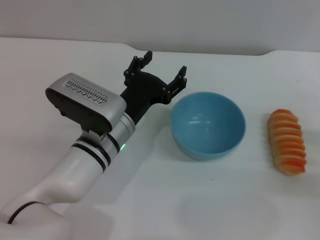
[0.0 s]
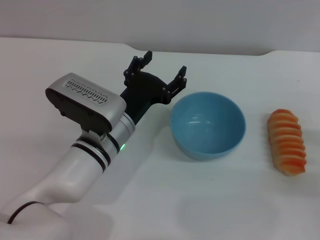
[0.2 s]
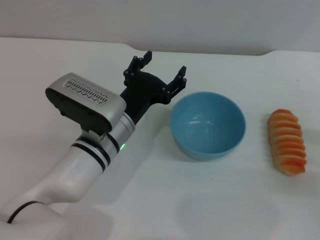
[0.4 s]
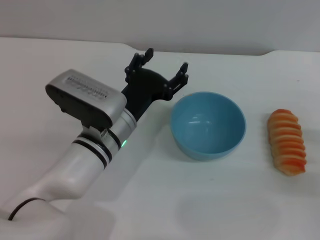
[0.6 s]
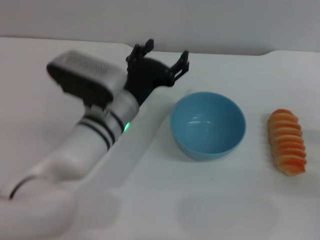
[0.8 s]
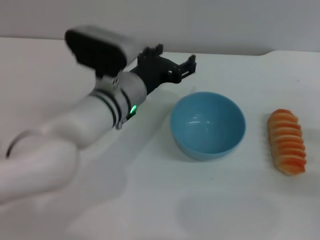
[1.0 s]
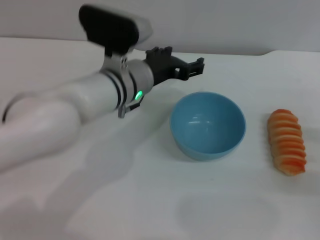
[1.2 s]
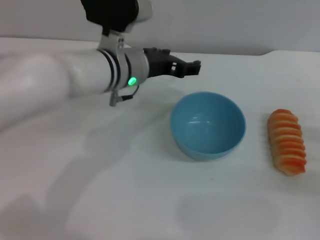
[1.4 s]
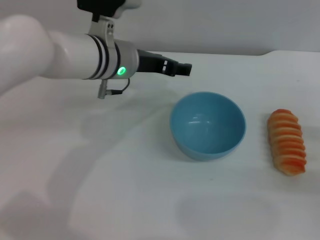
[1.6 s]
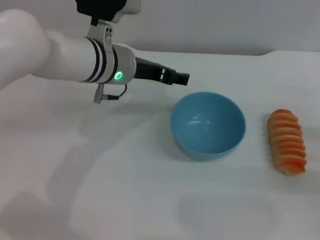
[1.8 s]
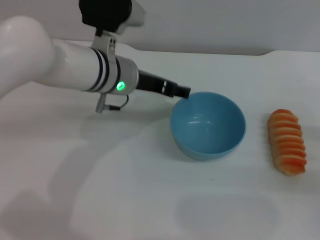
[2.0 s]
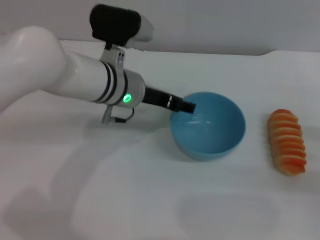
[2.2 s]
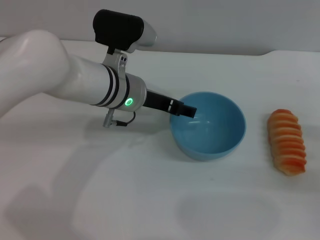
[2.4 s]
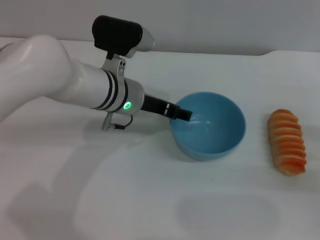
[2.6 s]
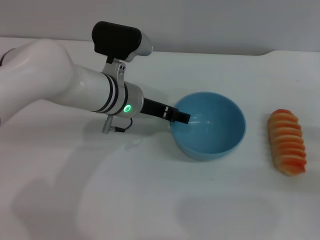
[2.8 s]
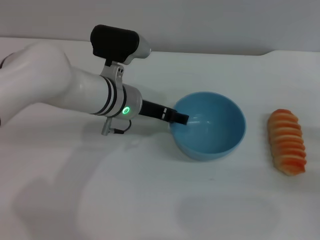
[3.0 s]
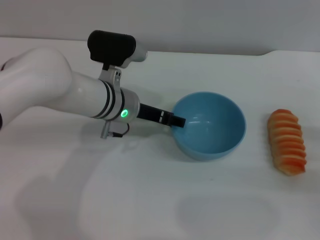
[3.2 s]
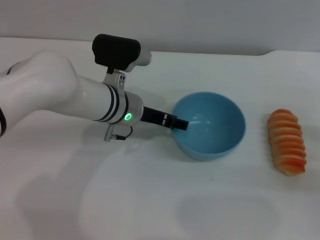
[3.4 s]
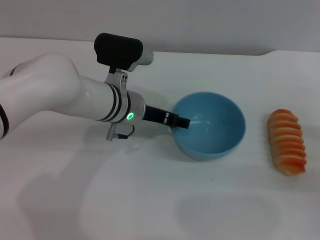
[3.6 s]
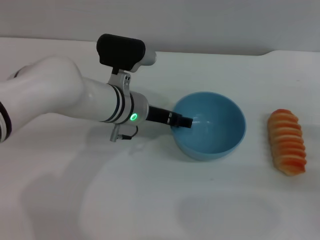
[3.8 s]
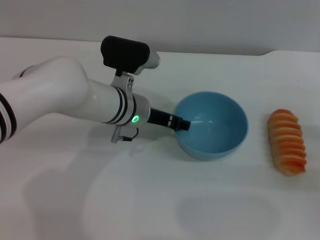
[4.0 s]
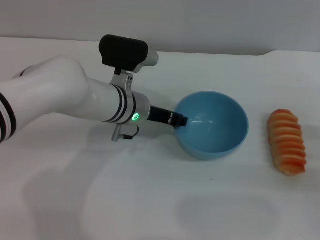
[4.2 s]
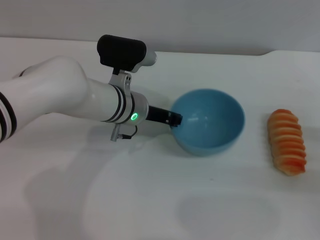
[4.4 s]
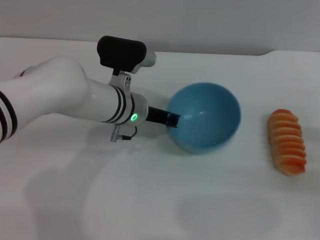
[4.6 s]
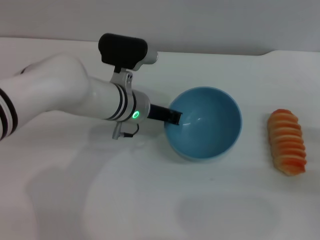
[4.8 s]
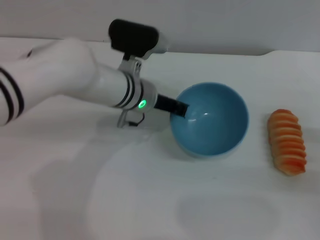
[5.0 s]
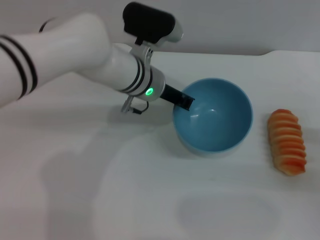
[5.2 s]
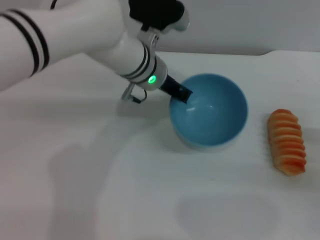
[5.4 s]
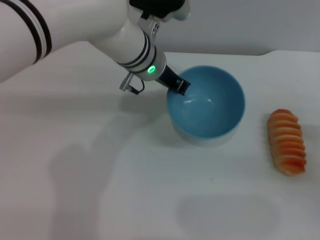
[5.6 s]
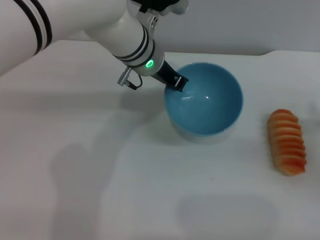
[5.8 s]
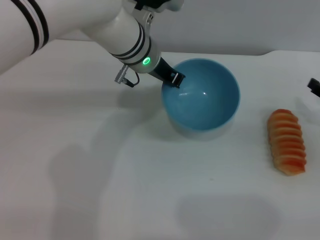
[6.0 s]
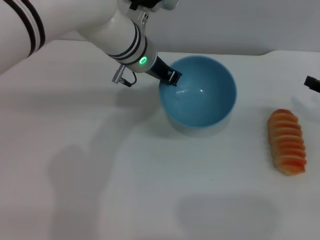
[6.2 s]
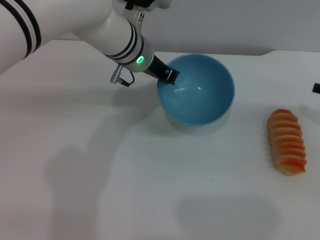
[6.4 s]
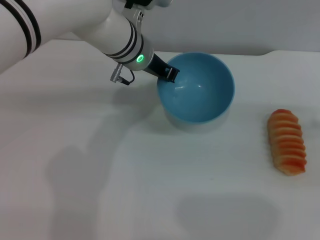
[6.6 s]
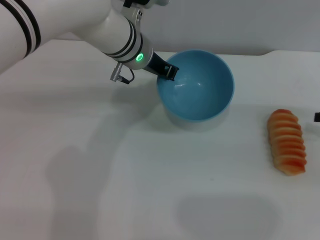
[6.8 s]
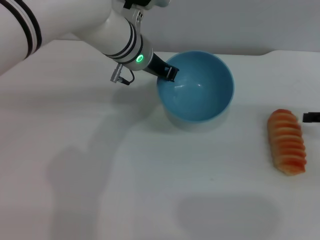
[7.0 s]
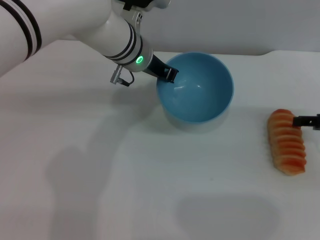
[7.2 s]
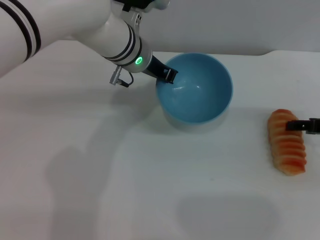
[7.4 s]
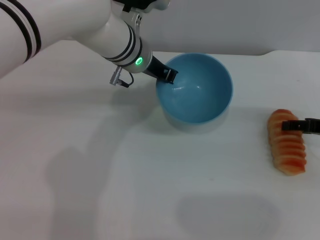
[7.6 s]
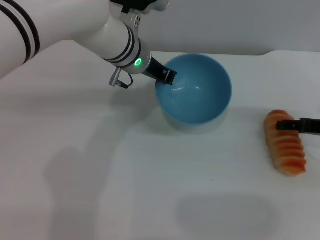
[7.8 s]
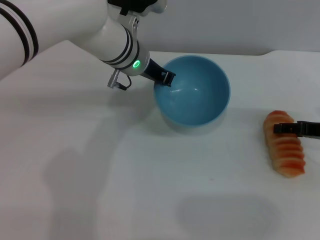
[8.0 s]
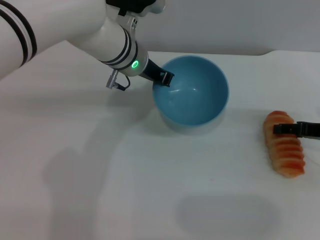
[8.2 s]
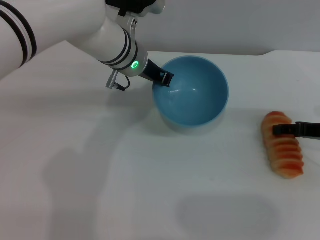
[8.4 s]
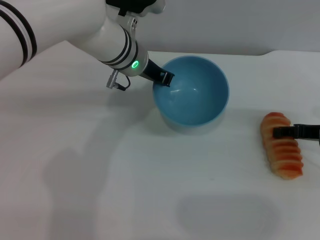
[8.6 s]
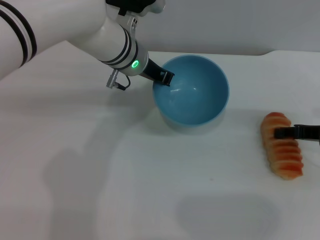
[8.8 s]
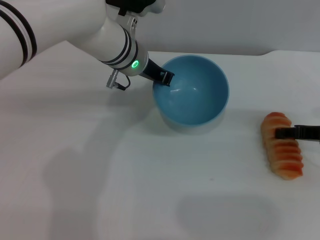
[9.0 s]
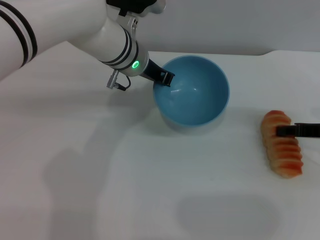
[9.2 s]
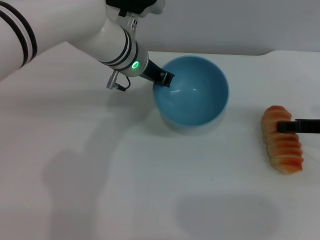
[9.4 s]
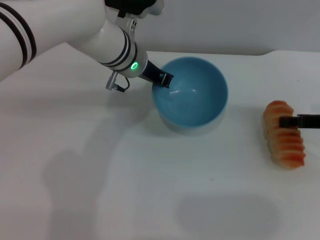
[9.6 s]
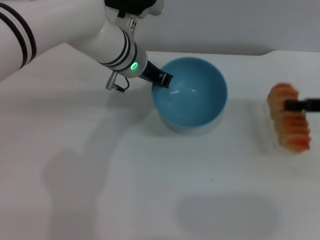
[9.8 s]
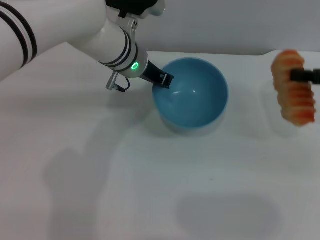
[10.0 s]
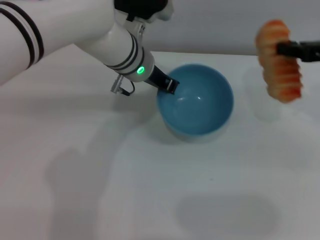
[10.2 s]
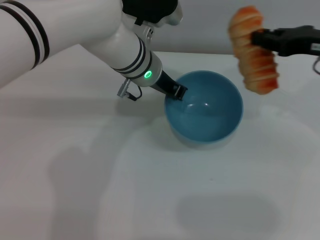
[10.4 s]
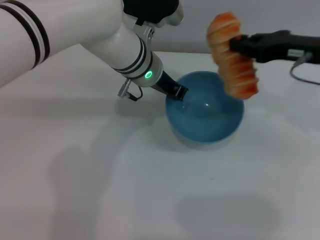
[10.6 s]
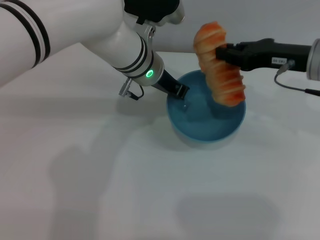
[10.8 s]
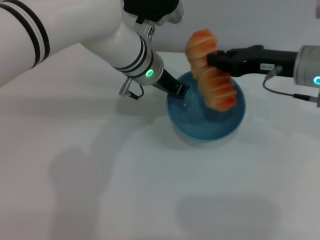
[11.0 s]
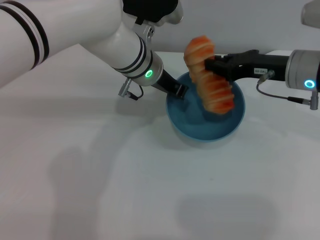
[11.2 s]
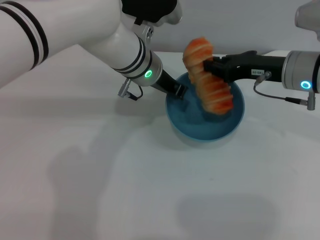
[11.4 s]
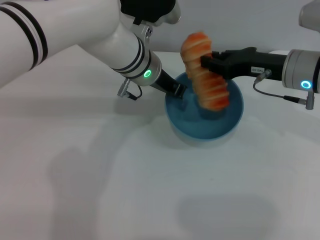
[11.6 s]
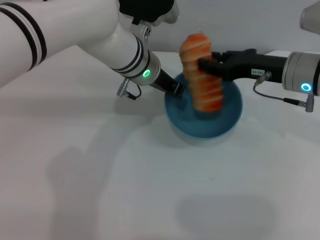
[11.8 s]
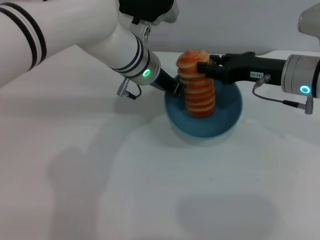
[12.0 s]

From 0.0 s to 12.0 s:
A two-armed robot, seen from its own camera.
Task of the whole recording: put the bread into the blue bowl and pour it out repeatedly.
Step, from 0.0 s to 5.8 s: Pick up the bowl with the left gripper.
Step, from 6.0 s to 9.8 s: Pick up the bread with the right gripper.
From 0.0 s to 1.6 s: The left gripper travels forward and upward by about 15 cm.
From 1.6 s to 3.0 s: The left gripper shifts about 5 cm downward.
From 3.0 s to 4.4 s: The left gripper closes its fingers.
From 4.4 s to 6.0 s: The right gripper moves forward, approximately 5 cm; the left gripper is displaced upward and forward by some 10 cm, and closes.
From 7.6 s to 9.0 s: The grippers stay close to where they were, moving slightly.
From 9.0 s to 10.4 s: The right gripper shifts roughly 10 cm upward, and closes up.
From 10.4 s to 12.0 s: The right gripper moves to the left and downward, approximately 10 cm.

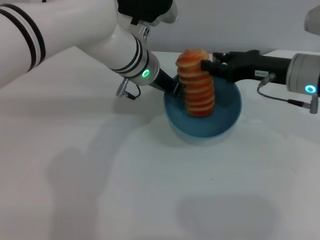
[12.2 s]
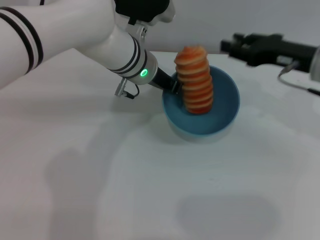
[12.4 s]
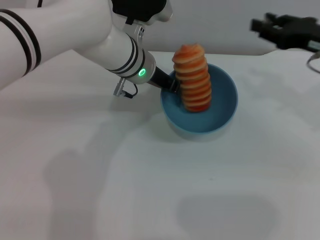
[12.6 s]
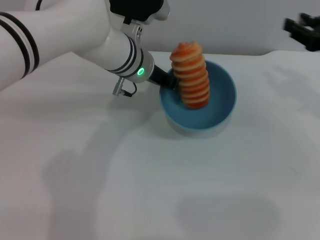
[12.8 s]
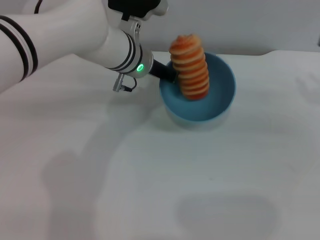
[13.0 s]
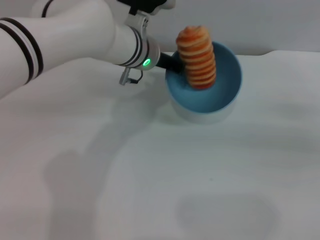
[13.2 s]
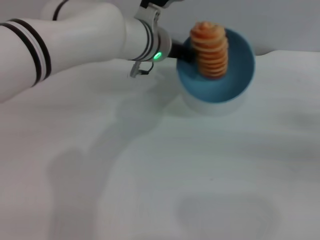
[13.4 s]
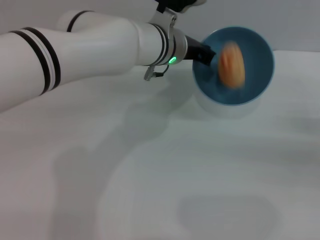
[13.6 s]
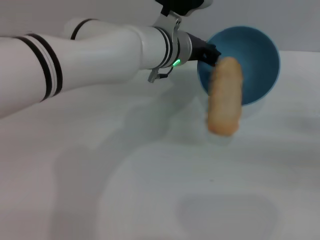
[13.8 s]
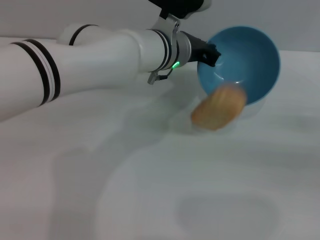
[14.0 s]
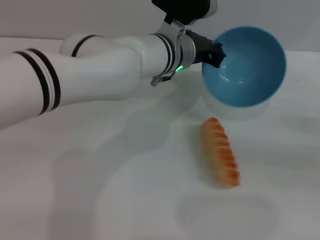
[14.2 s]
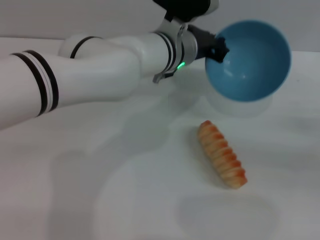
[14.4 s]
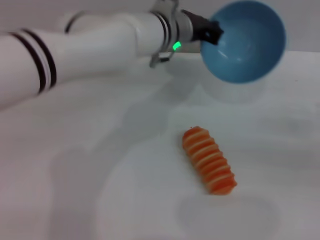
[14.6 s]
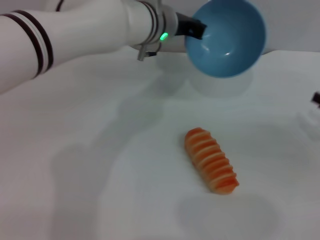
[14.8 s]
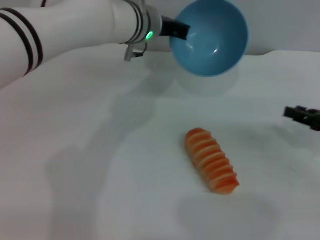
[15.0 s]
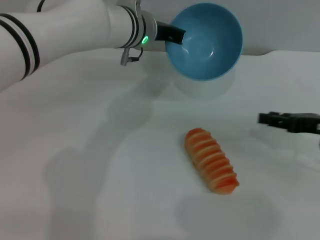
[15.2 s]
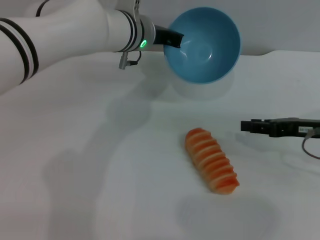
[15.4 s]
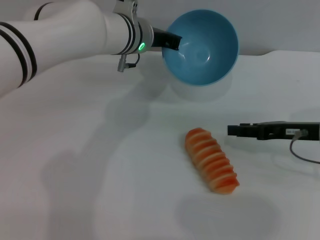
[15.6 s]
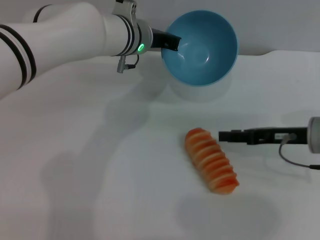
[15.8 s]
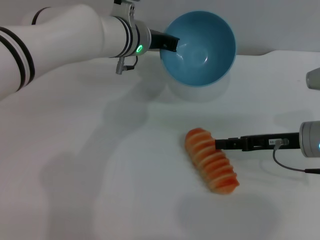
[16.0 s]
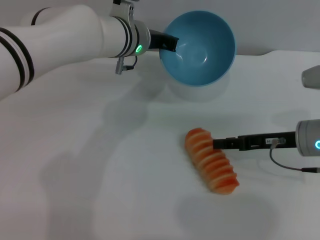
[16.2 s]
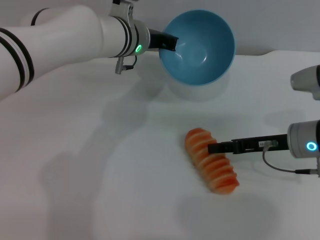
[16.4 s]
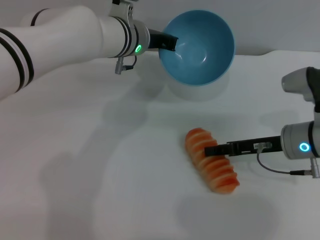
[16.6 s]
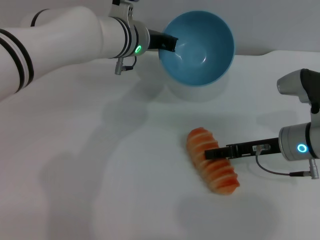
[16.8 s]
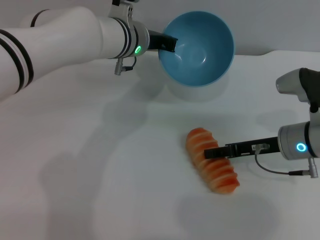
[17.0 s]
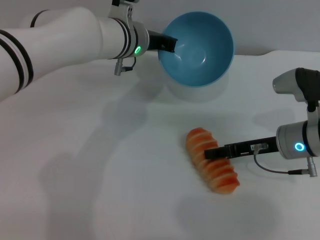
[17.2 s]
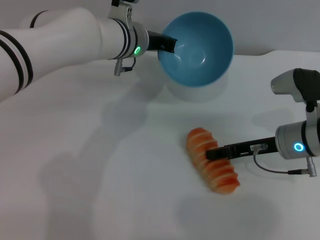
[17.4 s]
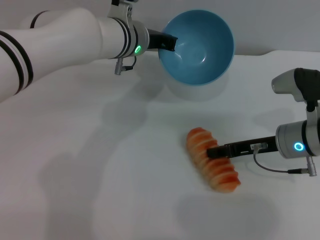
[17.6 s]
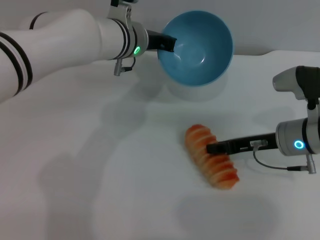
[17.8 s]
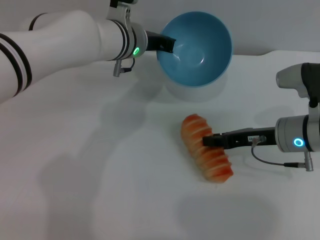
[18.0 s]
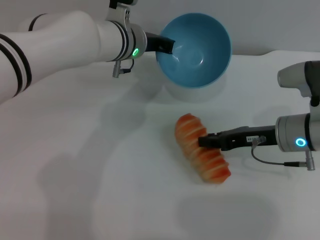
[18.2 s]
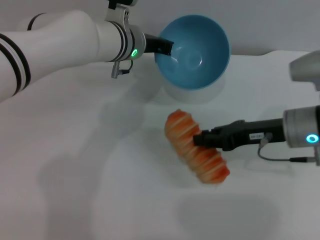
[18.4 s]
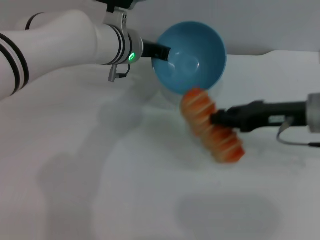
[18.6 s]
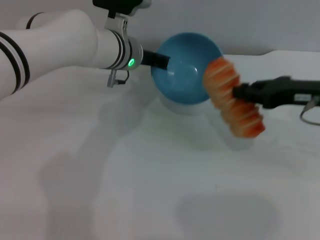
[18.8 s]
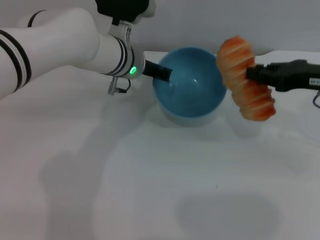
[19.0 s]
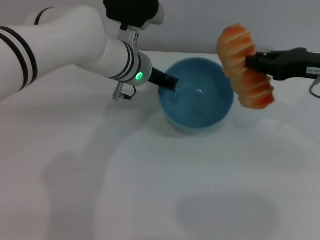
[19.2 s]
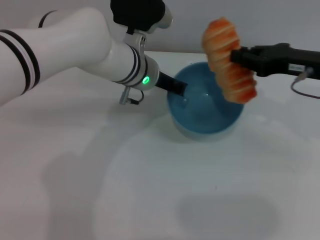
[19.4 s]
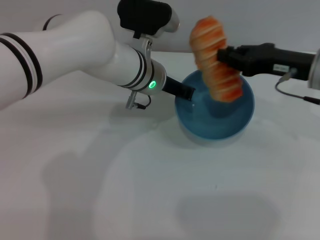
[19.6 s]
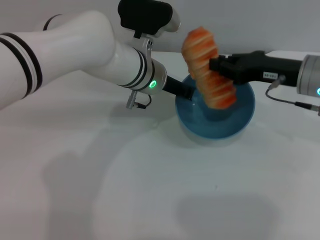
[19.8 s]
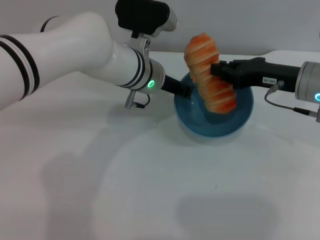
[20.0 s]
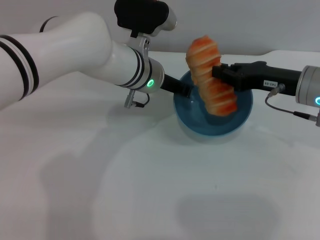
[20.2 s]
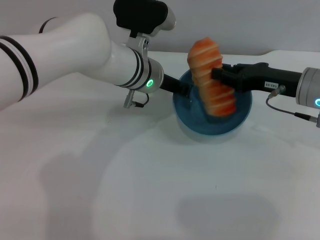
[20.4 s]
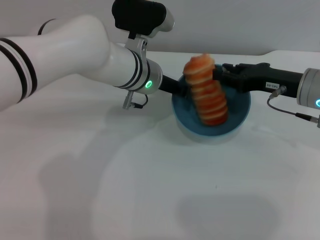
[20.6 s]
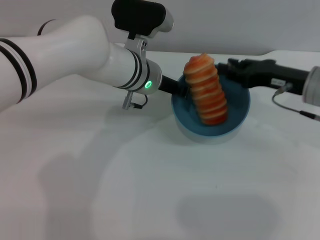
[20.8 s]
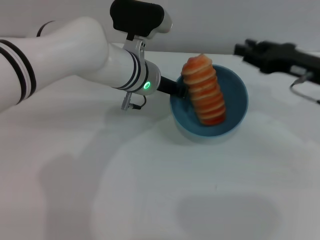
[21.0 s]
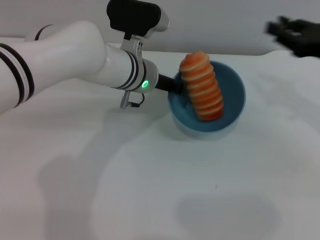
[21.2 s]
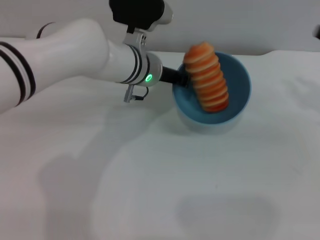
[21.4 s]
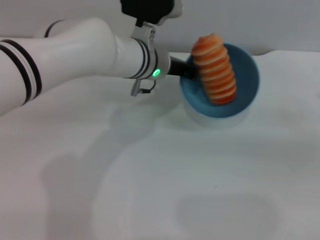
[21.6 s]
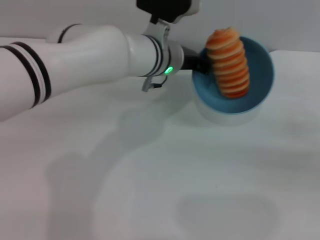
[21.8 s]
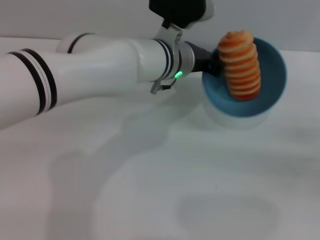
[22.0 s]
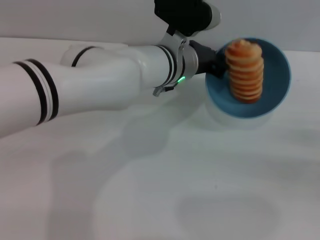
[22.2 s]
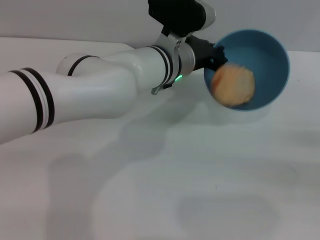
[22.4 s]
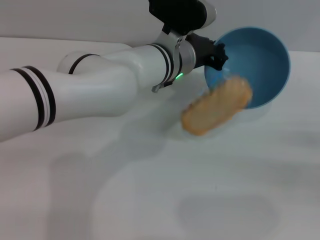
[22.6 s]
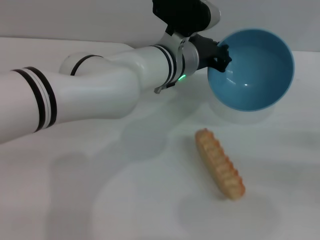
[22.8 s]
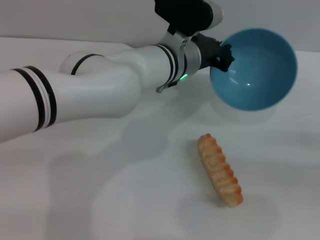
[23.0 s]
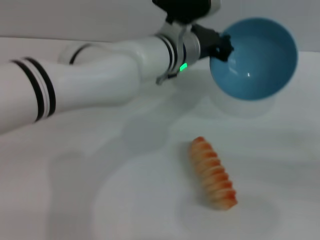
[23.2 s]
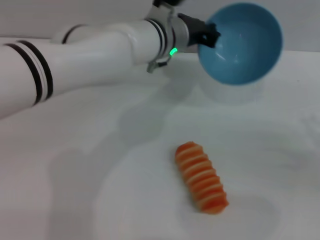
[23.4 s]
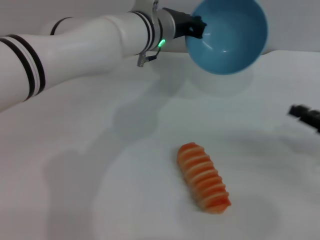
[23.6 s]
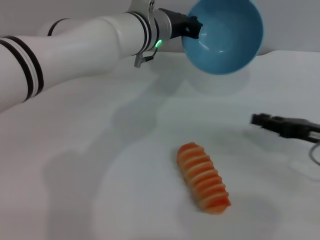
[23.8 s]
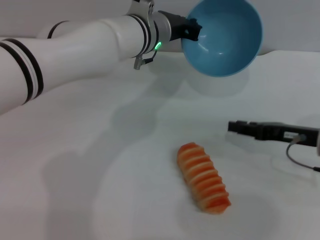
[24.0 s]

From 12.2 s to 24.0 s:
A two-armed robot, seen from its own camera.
Task of the whole recording: put the bread into the blue bowl and pour it out repeatedly.
Step, from 12.6 s to 14.2 s: Pour the bread out of the bowl.
Step, from 14.6 s to 18.6 s: Pick up the bread with the right gripper.
Step, from 18.8 s to 20.8 s: Place the bread into the bowl.
Step, from 21.2 s to 23.2 s: Pour the bread out of the bowl.
From 12.2 s to 13.6 s: The right gripper moves to the right and backward, roughly 20 cm.
From 13.6 s to 15.2 s: The right gripper travels to the left by roughly 10 cm. The left gripper moves approximately 5 cm.
From 15.2 s to 16.6 s: The right gripper moves to the left, some 10 cm.
From 16.6 s to 18.2 s: The right gripper closes up.
From 18.2 s to 19.6 s: The right gripper is displaced upward by about 5 cm.
From 19.6 s to 21.0 s: The right gripper opens up.
From 21.0 s to 22.6 s: The right gripper is displaced to the right, backward and downward by about 20 cm. Meanwhile the left gripper ends up some 5 cm from where it was.
From 22.6 s to 24.0 s: The right gripper shifts roughly 15 cm to the left and forward. The left gripper shifts by about 5 cm.
